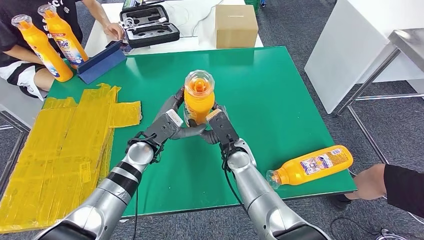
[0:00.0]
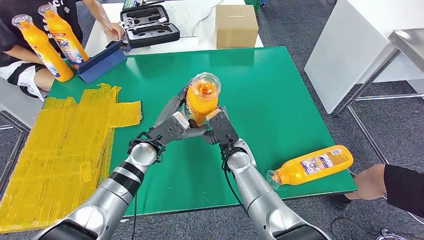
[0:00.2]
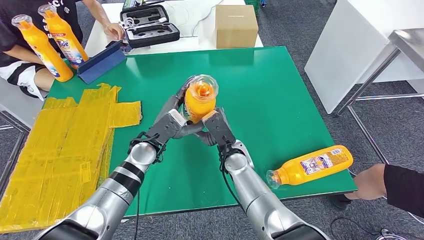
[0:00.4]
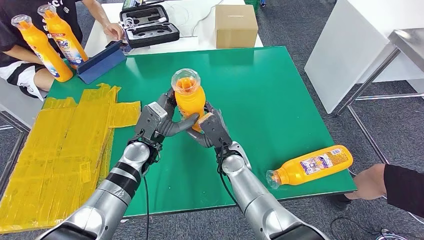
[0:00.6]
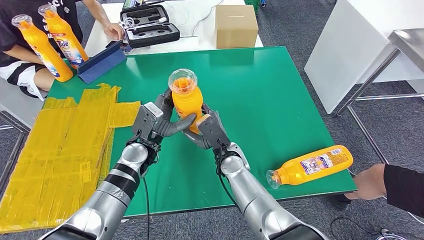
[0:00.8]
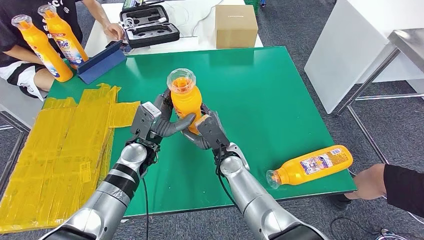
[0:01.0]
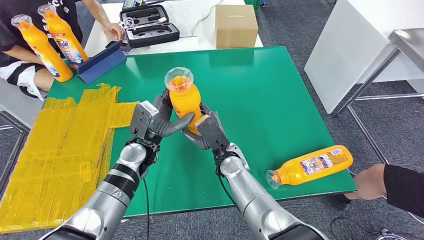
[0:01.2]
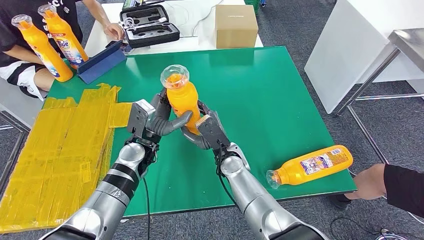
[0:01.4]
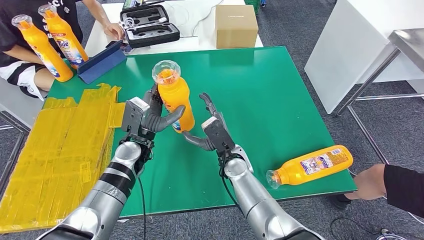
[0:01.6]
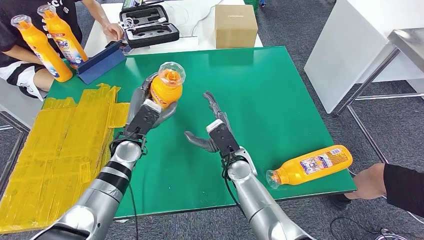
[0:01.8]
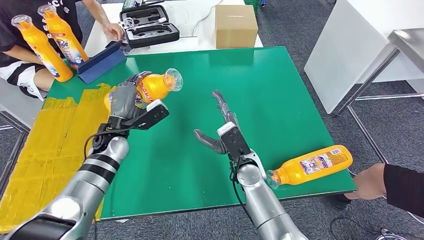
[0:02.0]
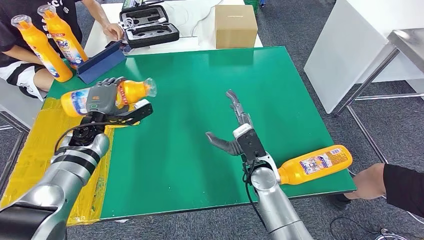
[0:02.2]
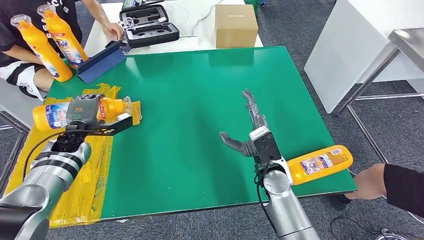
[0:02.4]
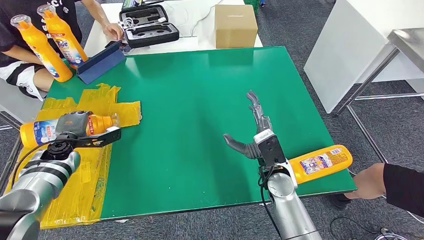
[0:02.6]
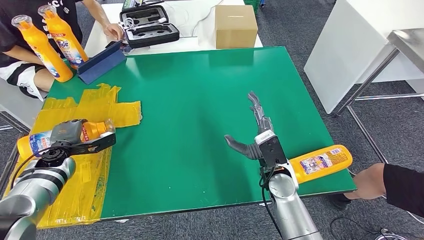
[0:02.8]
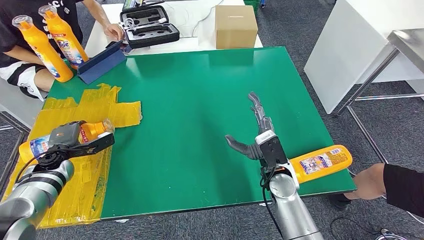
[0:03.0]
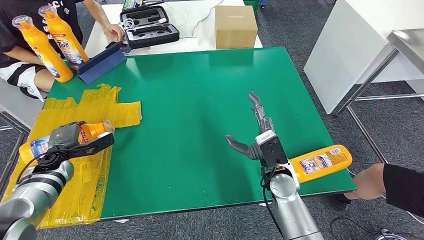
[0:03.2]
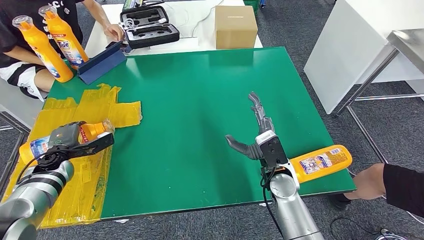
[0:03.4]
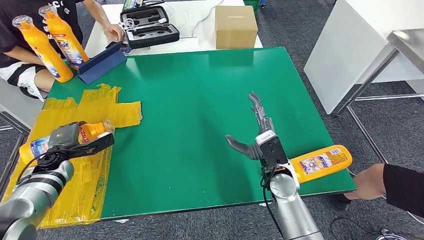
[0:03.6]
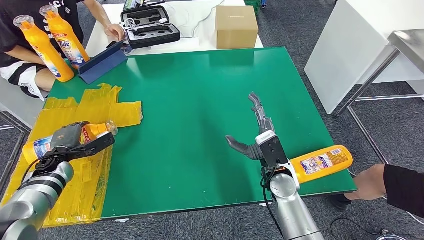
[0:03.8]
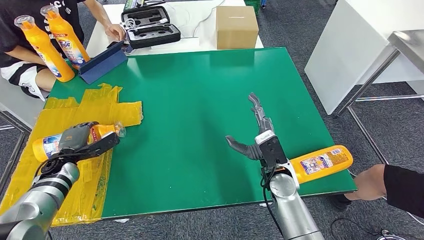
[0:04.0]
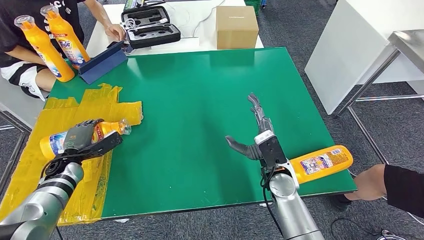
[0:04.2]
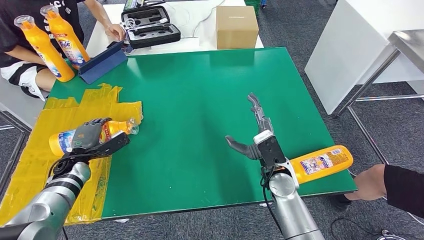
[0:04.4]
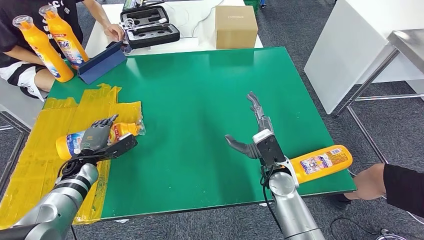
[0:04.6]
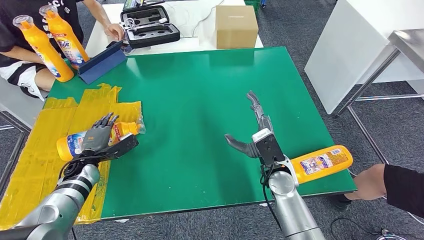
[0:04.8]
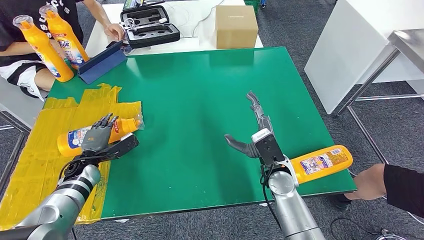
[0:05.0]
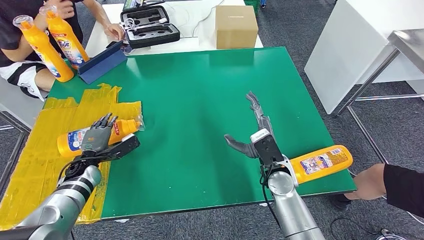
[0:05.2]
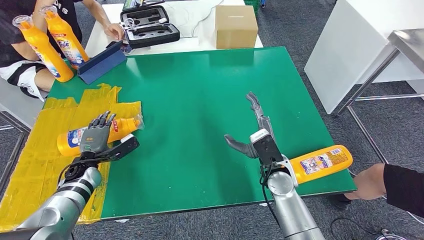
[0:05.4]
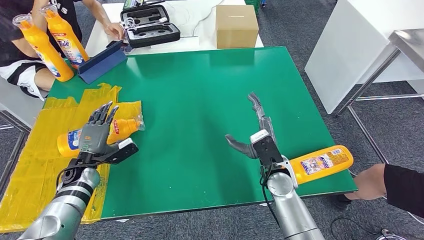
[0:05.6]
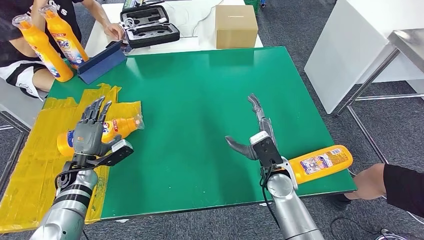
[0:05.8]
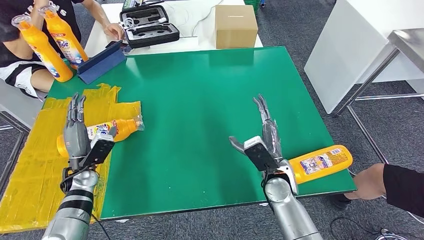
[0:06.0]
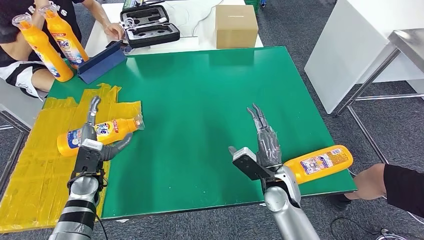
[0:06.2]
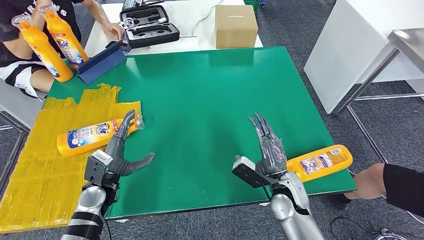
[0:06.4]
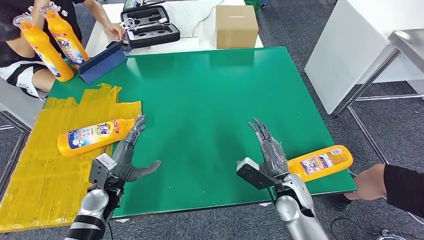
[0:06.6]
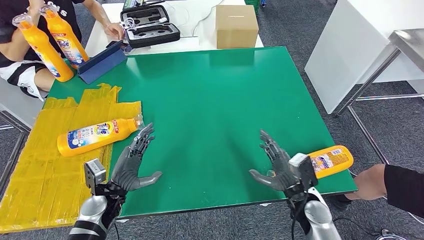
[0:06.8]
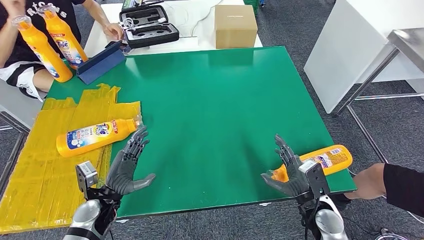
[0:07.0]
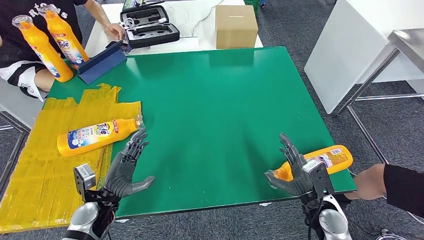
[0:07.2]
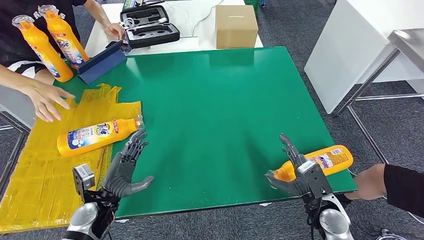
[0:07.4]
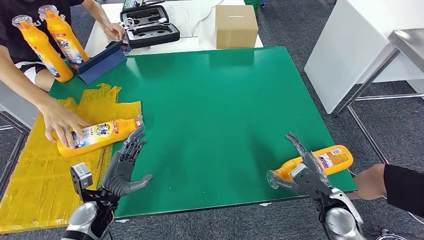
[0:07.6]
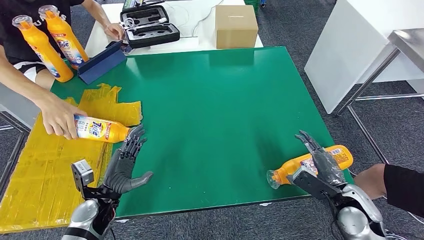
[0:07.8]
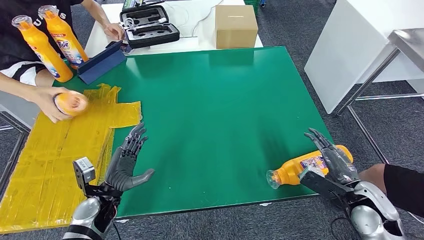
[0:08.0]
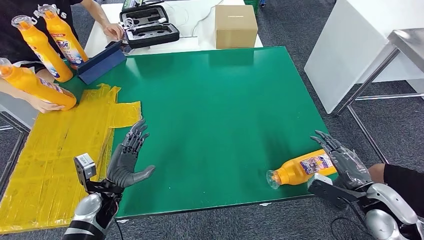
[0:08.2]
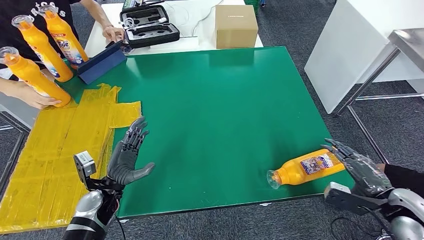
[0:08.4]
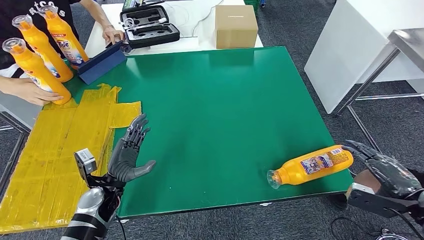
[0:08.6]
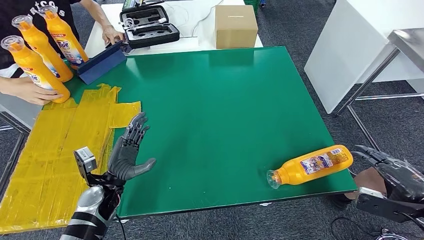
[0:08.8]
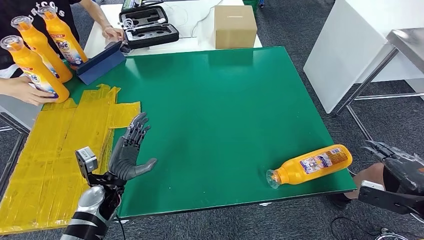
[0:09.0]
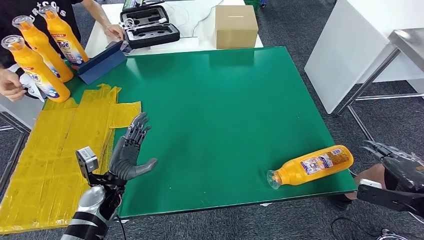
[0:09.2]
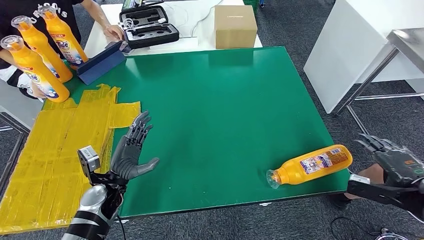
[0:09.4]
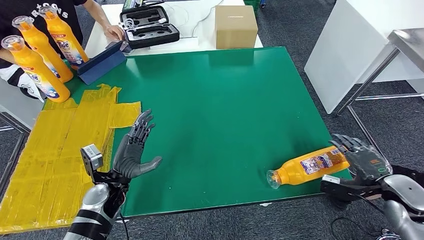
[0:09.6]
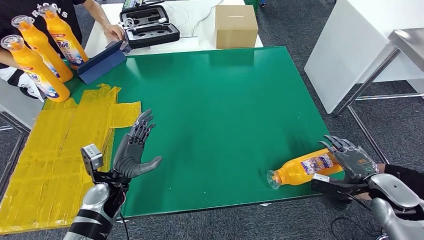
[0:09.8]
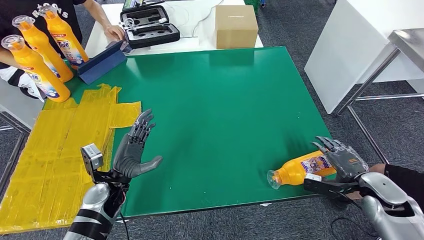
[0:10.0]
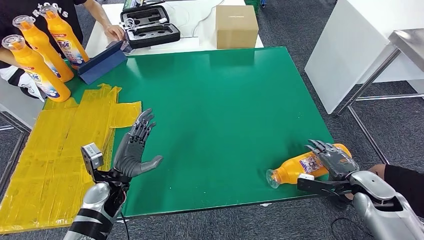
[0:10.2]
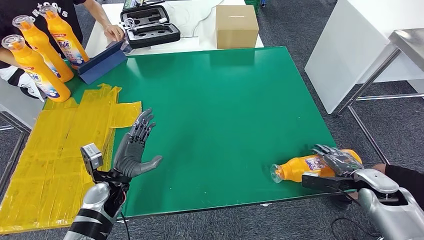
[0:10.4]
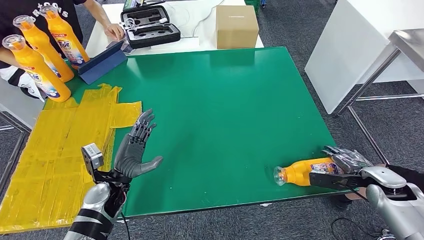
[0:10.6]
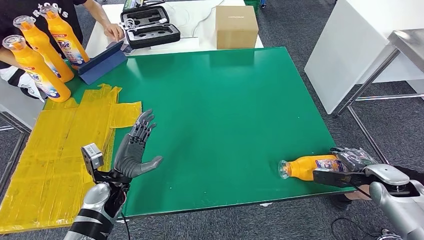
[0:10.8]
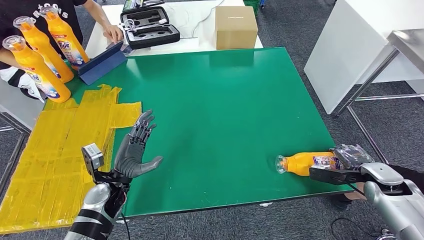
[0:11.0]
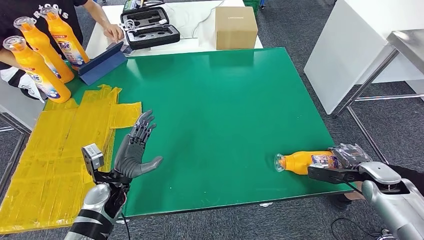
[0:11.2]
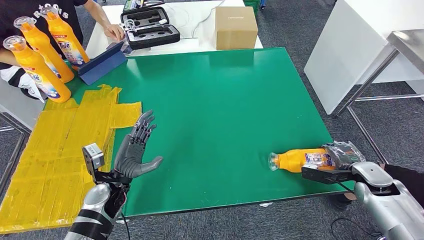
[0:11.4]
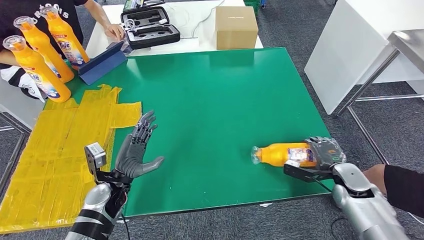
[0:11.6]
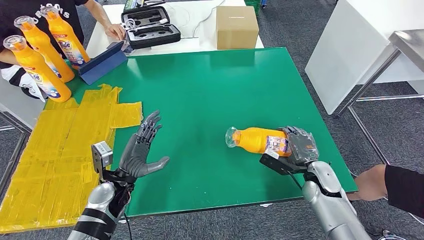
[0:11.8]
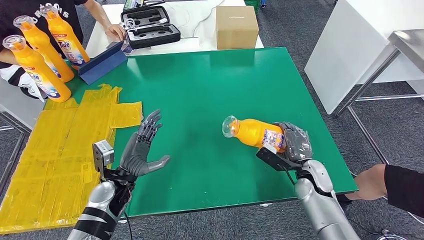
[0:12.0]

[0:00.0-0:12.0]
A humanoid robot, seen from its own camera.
Step, 0:00.0 to 0:04.8: Flip the fast-moving consumer goods bottle to the front side.
0:00.0 to 0:01.6: There are only small adjustments of the hands.
0:04.4 to 0:06.0: The left hand shifts by roughly 5 cm.
0:06.0 to 0:07.6: The left hand goes about 10 cm backward and to the right. The right hand goes some 15 cm to the right and backward.
0:07.6 to 0:09.0: The right hand travels to the right and upward by some 20 cm.
0:09.0 to 0:10.4: The right hand moves downward, forward and to the left, roughly 15 cm.
0:10.4 to 0:12.0: The right hand goes roughly 15 cm to the left.

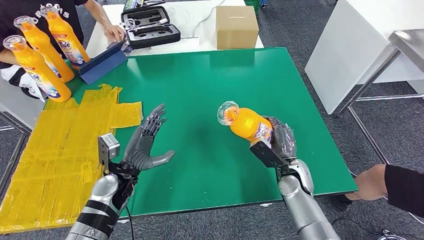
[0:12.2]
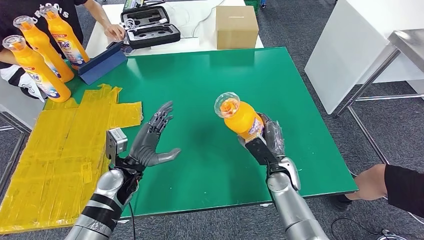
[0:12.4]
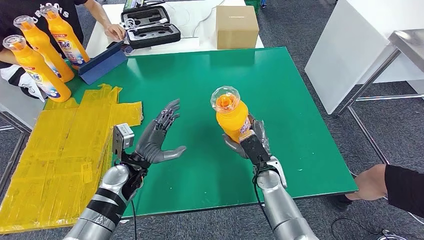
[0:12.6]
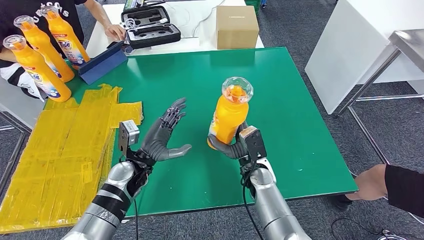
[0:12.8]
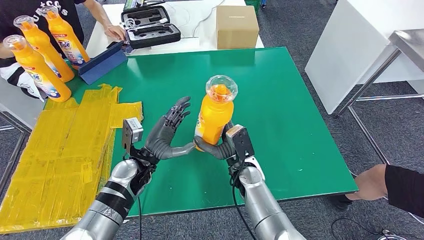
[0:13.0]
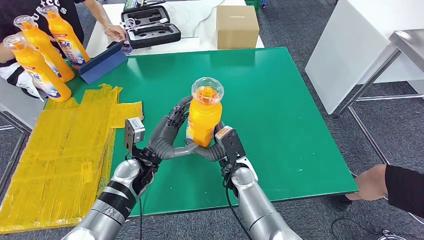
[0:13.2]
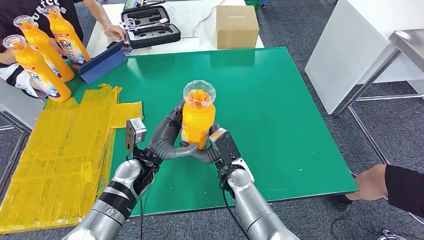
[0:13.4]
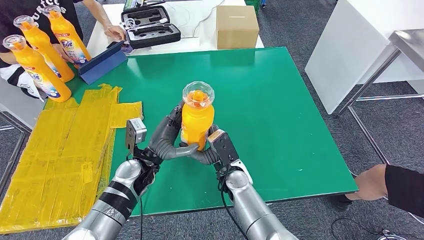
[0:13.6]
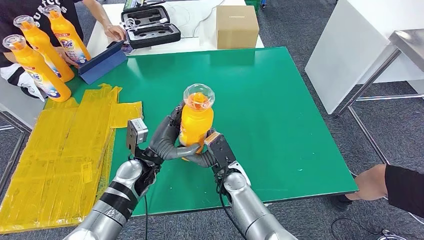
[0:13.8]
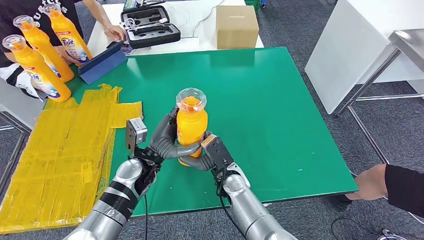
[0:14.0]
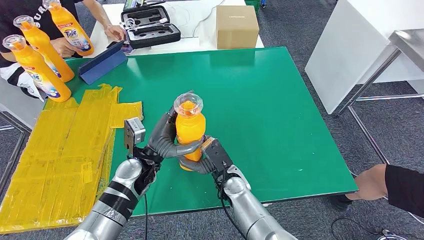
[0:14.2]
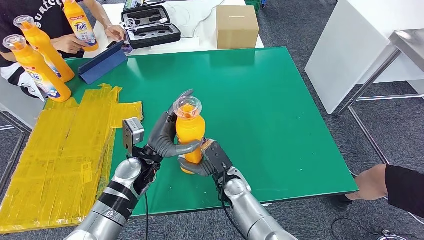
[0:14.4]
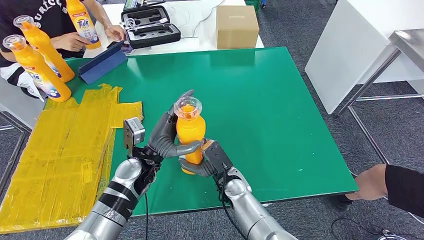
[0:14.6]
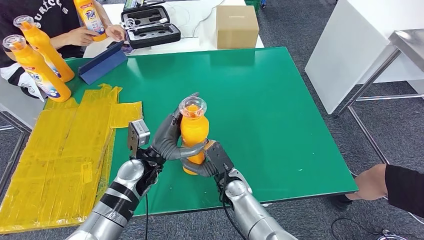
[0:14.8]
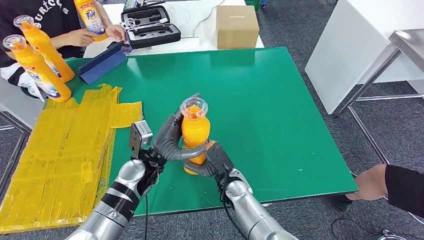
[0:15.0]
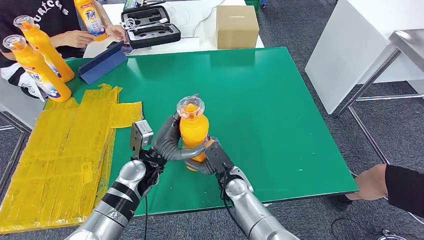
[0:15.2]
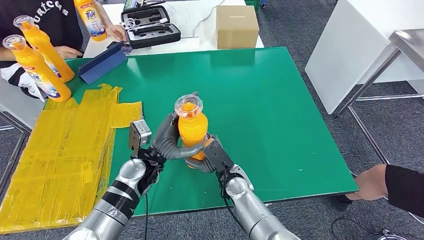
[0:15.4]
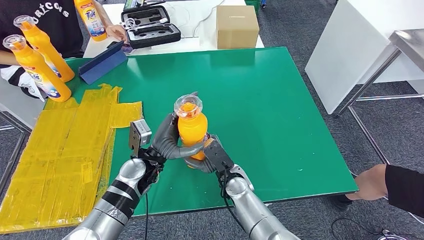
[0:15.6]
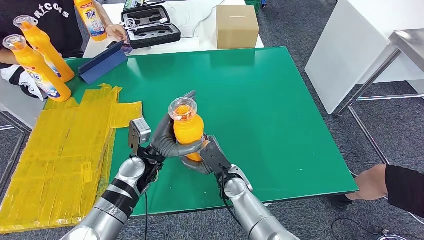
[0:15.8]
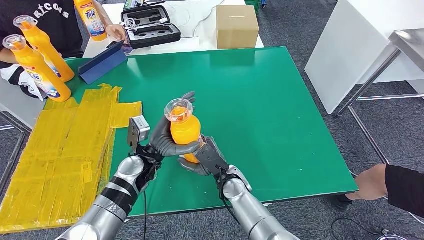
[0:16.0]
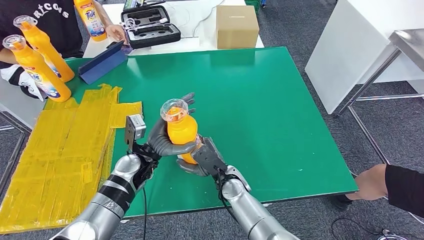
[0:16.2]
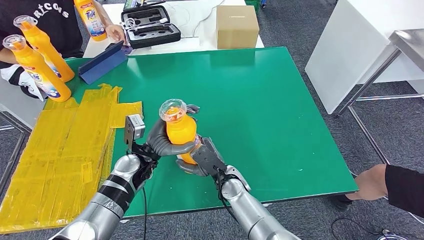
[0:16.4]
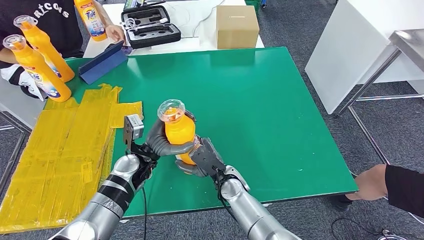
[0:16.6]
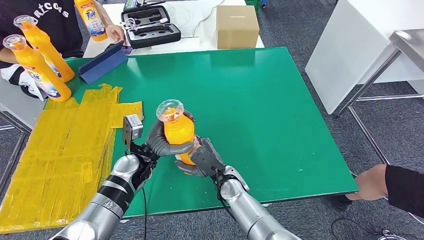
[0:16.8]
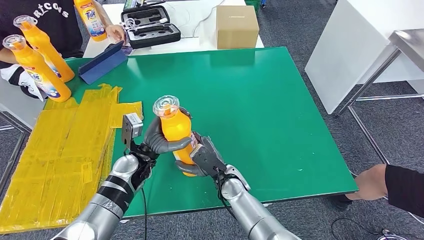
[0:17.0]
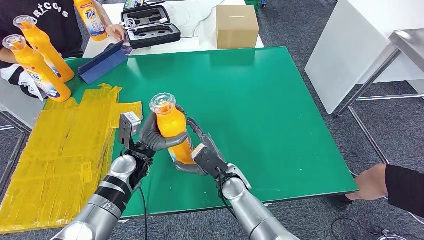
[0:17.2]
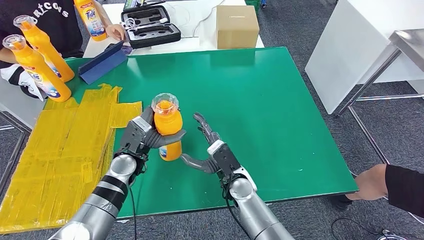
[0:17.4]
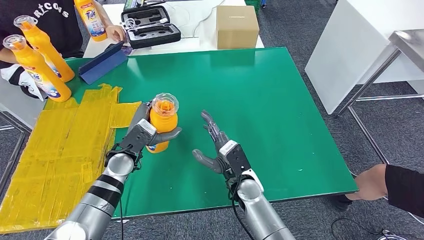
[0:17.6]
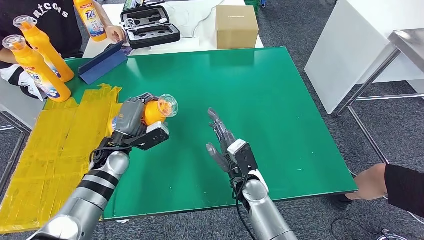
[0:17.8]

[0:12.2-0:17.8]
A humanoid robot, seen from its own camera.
0:12.2 to 0:13.6: The right hand shifts about 20 cm to the left. Meanwhile the left hand moves to the right, roughly 5 cm.
0:13.6 to 0:16.4: The hands move only a little.
0:16.4 to 0:17.8: The left hand travels to the left by about 5 cm; the right hand moves about 5 cm.
